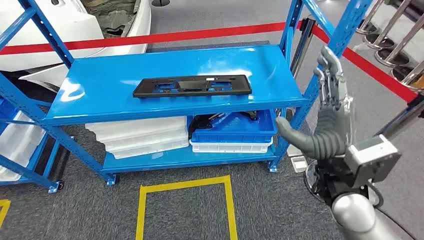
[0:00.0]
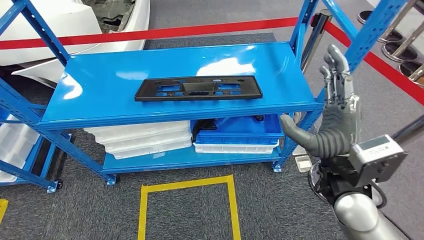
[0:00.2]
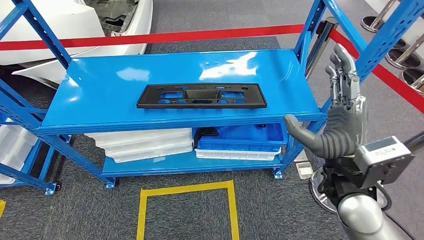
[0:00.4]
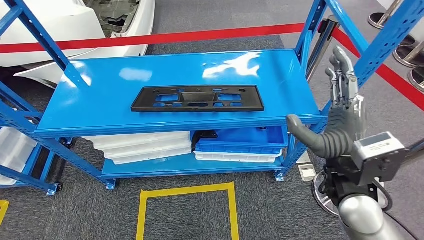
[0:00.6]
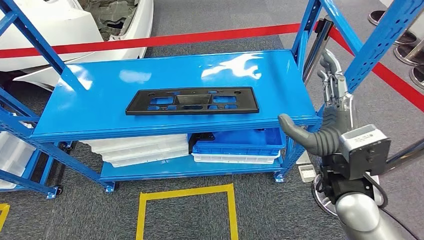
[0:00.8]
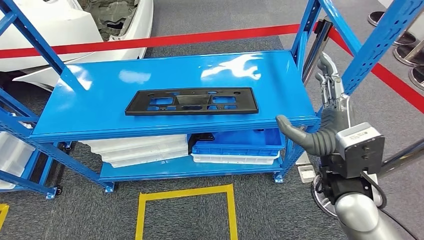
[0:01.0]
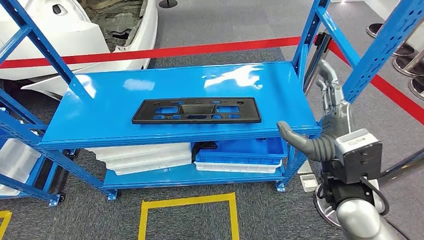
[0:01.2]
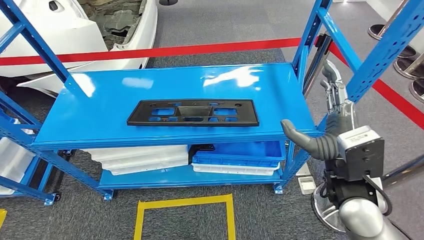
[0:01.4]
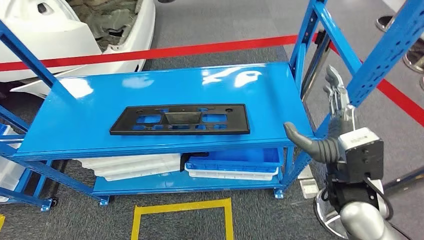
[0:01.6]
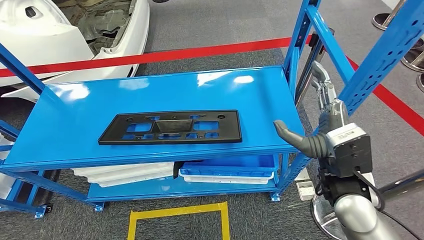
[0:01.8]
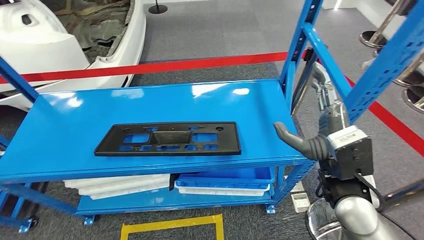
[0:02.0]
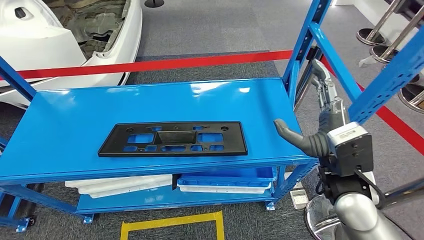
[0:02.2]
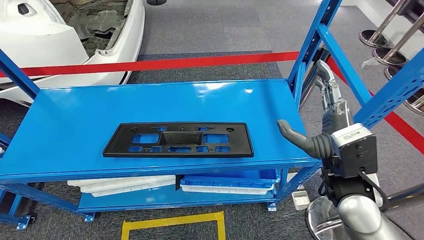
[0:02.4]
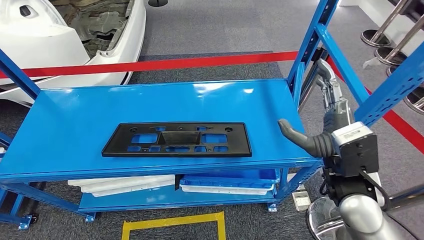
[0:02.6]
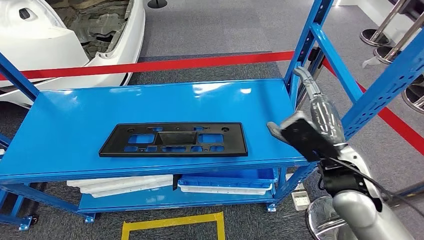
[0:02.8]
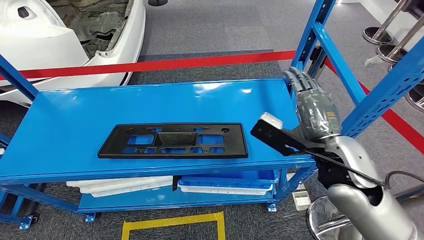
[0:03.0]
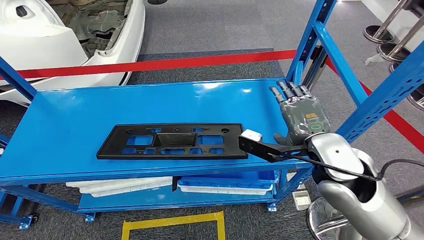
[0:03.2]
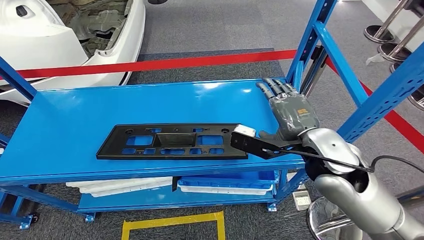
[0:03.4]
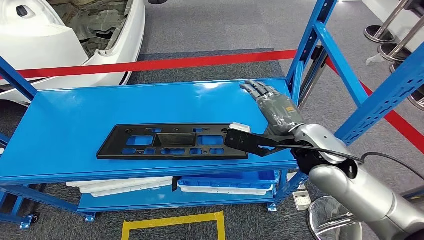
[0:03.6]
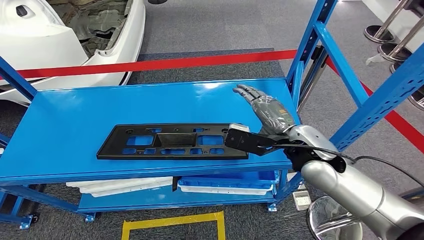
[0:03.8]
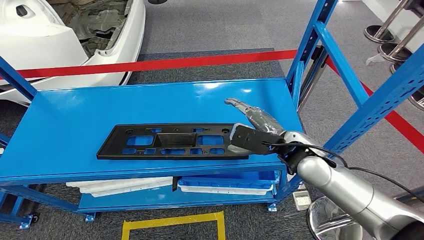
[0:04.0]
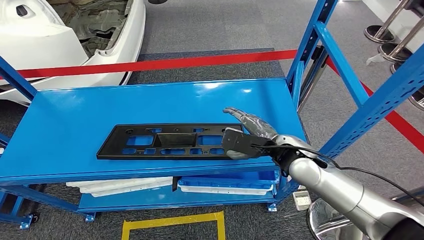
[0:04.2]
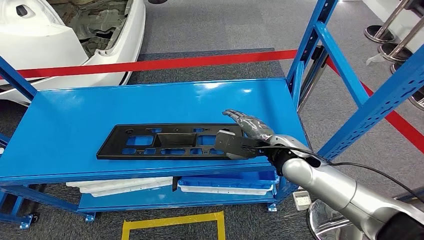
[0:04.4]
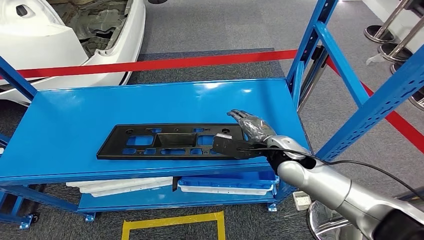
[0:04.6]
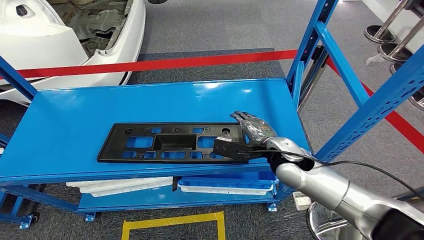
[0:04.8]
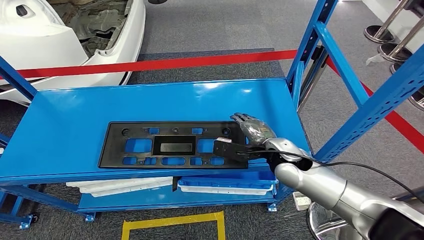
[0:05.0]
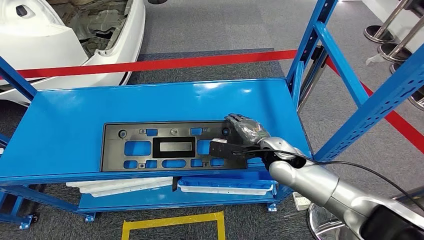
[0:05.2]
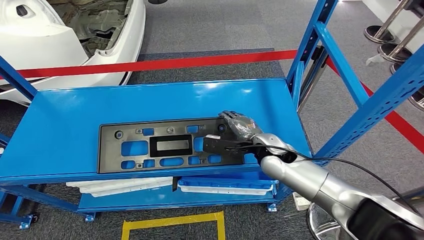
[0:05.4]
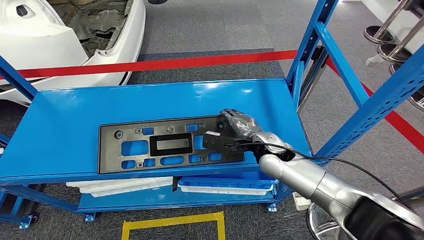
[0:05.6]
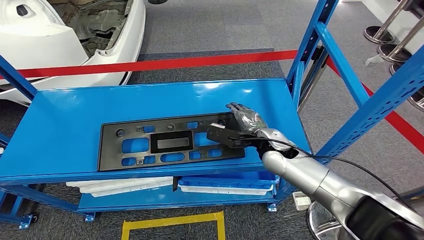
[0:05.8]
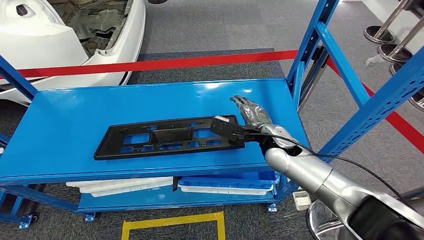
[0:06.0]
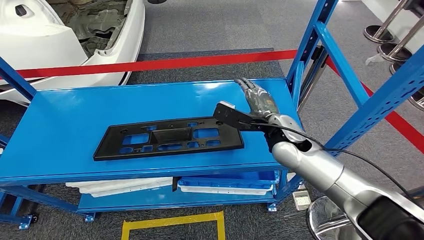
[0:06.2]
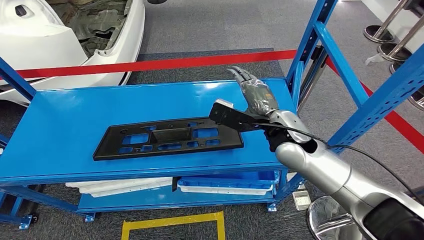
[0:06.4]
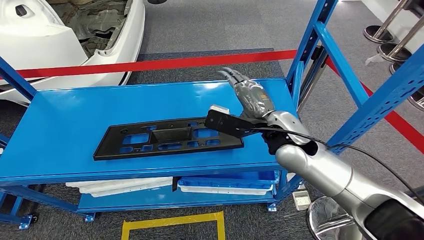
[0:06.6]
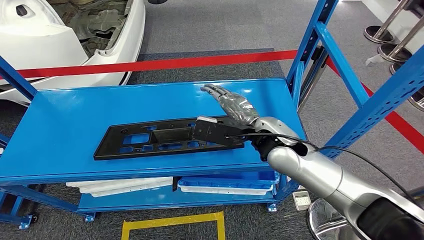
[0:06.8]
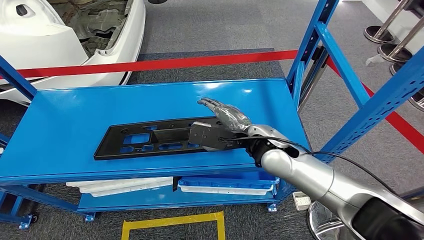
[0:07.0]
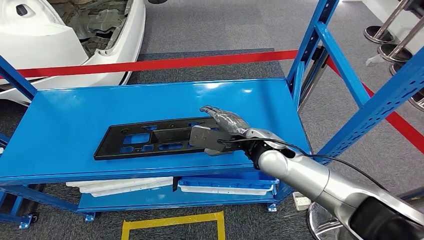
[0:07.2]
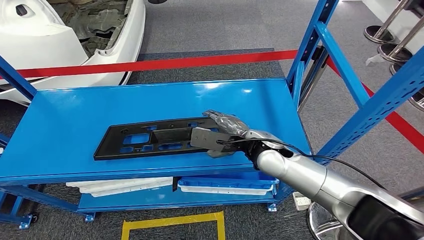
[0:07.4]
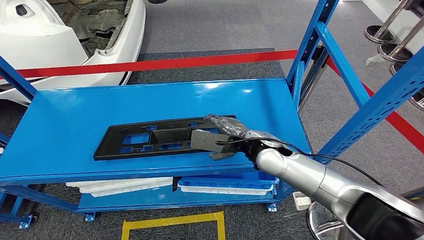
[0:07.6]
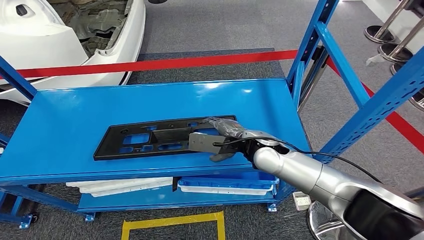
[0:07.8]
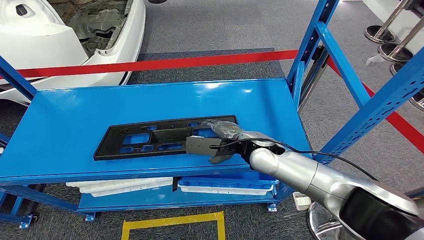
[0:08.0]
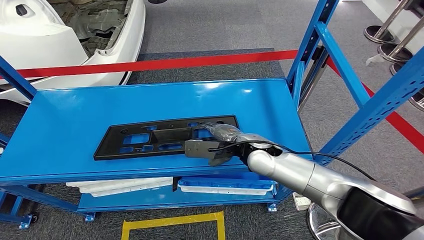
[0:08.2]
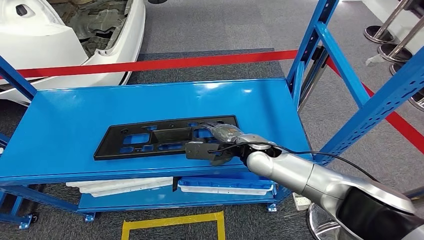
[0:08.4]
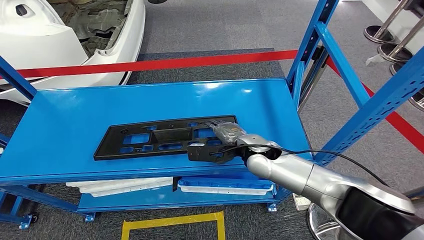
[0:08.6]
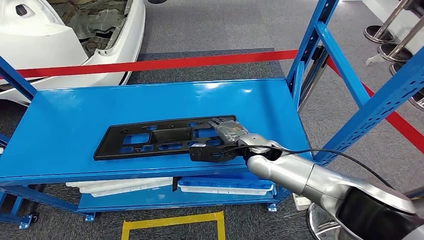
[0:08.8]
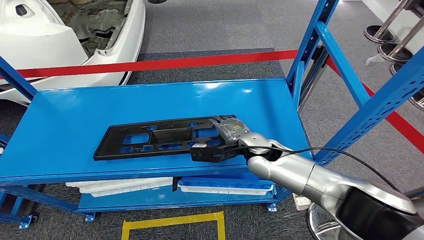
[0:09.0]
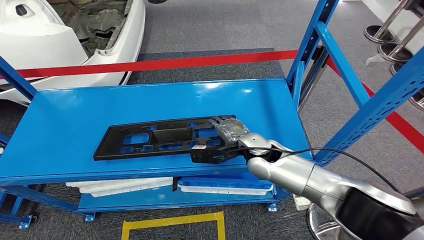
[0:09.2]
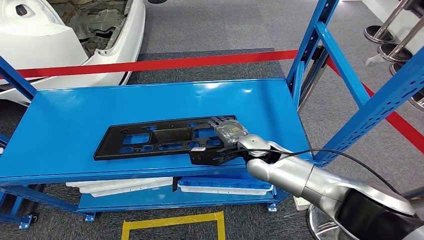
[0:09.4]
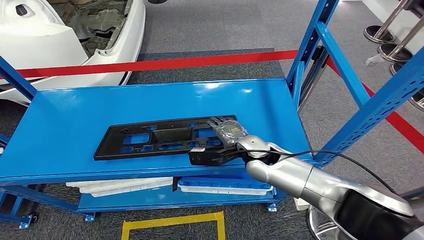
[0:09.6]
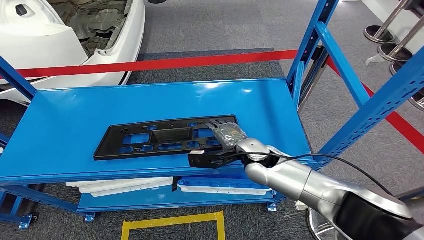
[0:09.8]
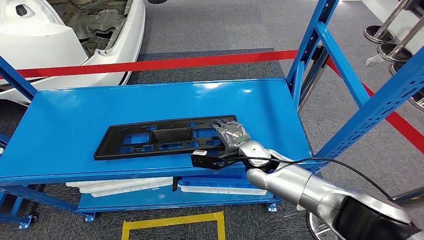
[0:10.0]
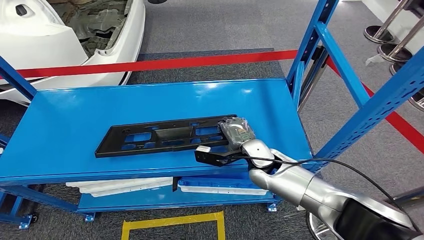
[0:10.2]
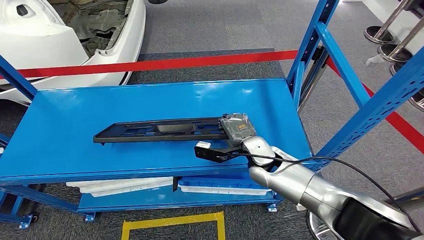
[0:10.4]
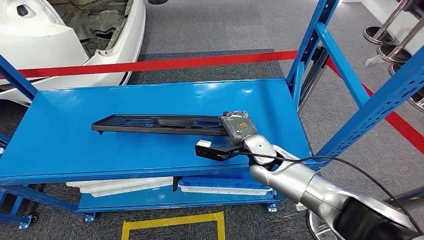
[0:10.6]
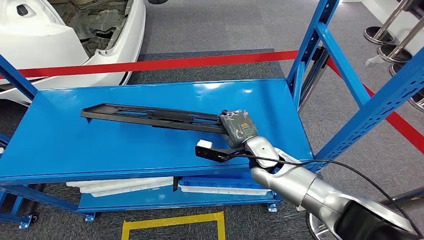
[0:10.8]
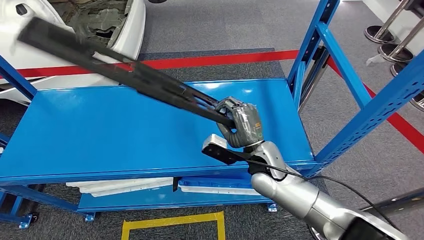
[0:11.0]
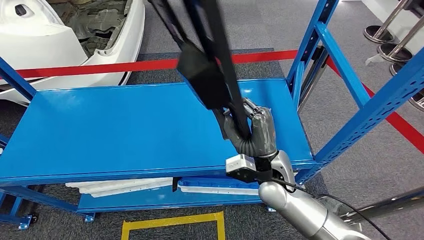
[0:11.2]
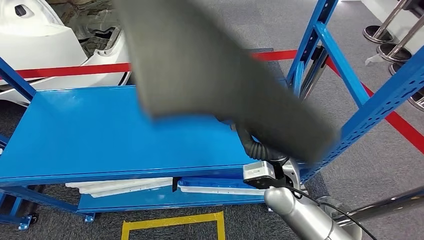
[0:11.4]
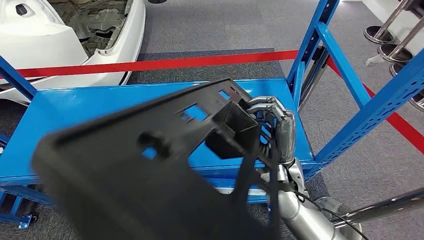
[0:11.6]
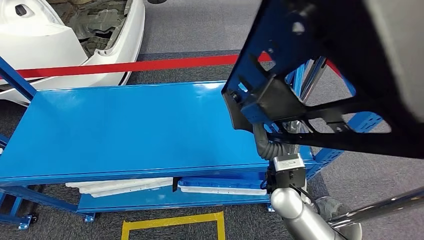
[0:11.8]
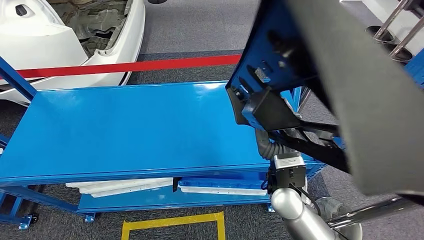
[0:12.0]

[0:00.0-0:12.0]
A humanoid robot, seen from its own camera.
0:03.0 to 0:04.4: The right hand travels downward and forward by roughly 10 cm.
0:04.4 to 0:06.0: The right hand is displaced forward by roughly 5 cm.
0:06.0 to 0:07.6: The right hand reaches about 10 cm upward, then returns.
0:09.0 to 0:10.4: There are only small adjustments of the hands.

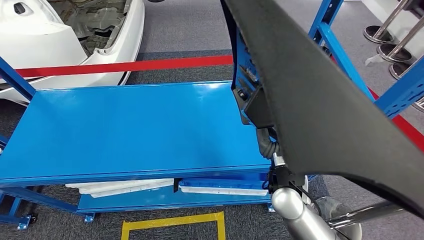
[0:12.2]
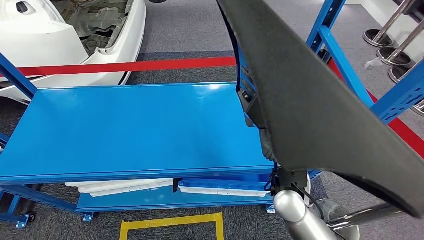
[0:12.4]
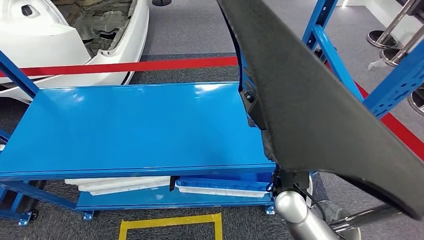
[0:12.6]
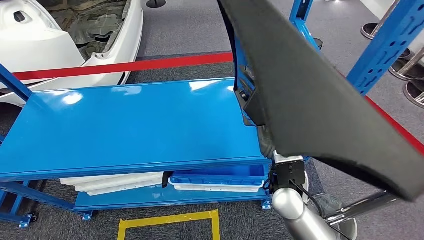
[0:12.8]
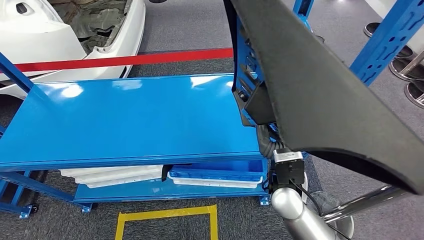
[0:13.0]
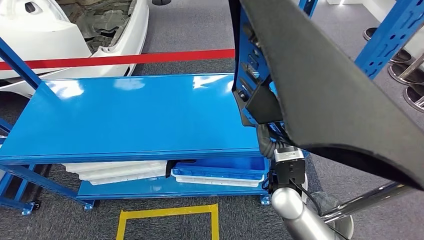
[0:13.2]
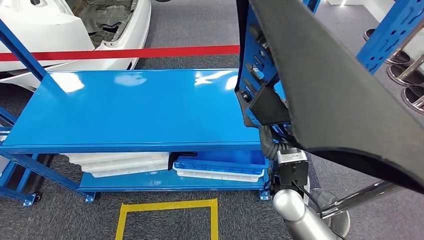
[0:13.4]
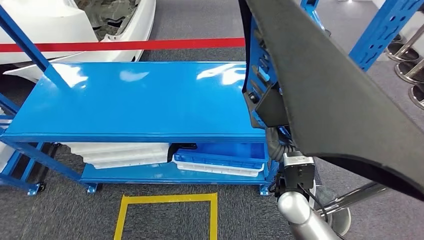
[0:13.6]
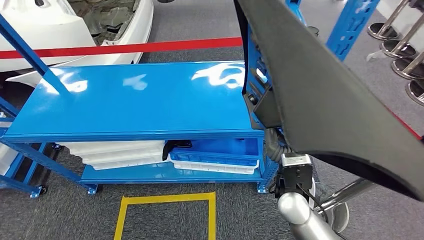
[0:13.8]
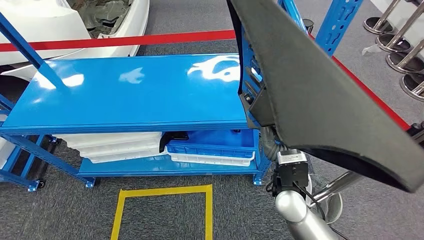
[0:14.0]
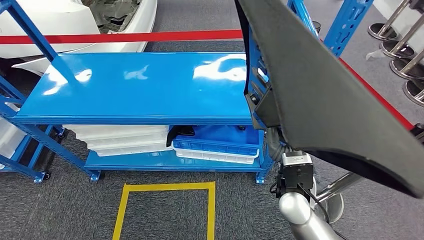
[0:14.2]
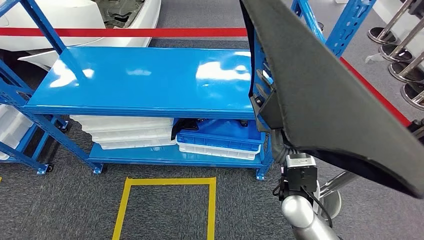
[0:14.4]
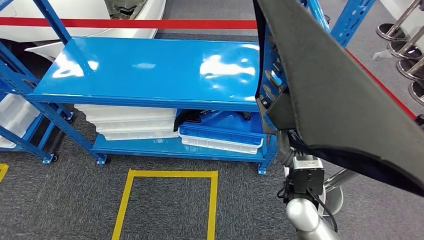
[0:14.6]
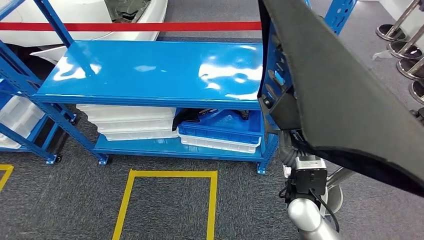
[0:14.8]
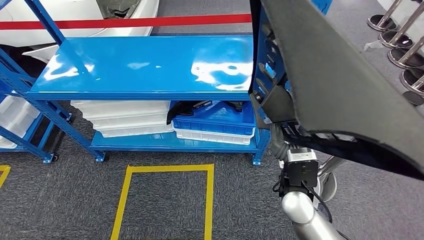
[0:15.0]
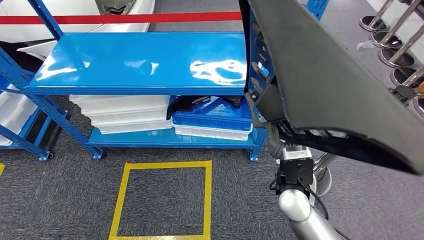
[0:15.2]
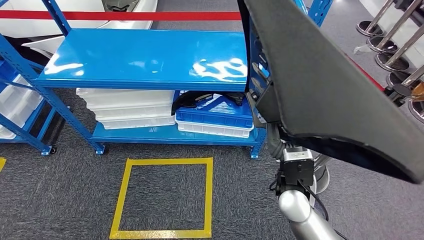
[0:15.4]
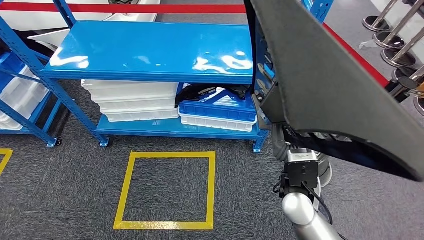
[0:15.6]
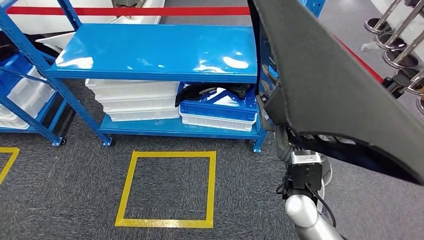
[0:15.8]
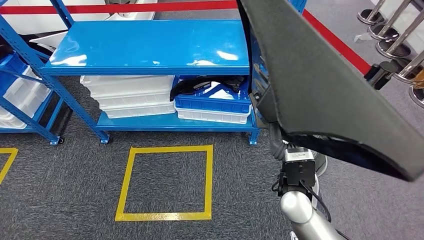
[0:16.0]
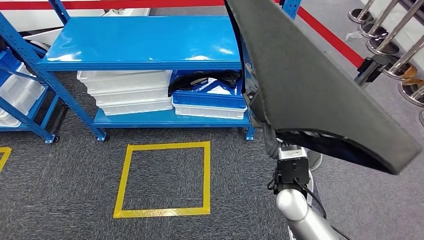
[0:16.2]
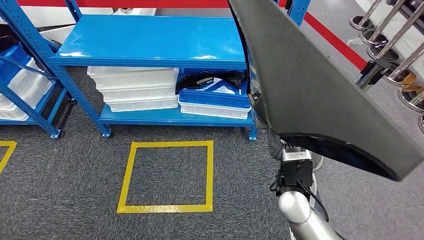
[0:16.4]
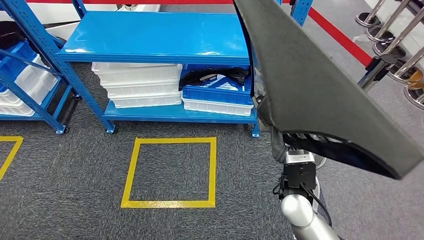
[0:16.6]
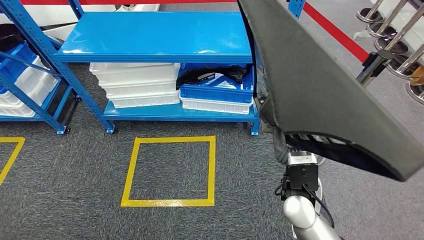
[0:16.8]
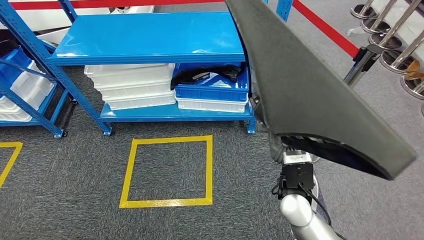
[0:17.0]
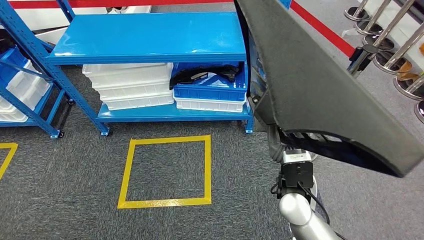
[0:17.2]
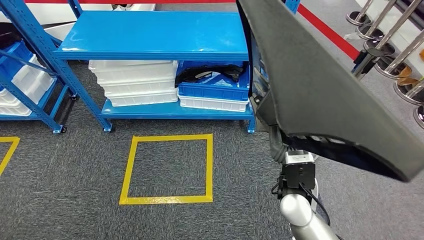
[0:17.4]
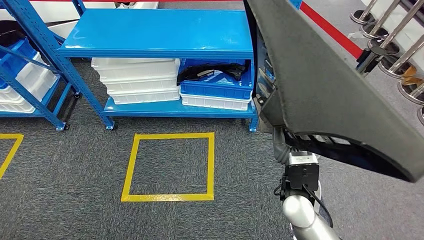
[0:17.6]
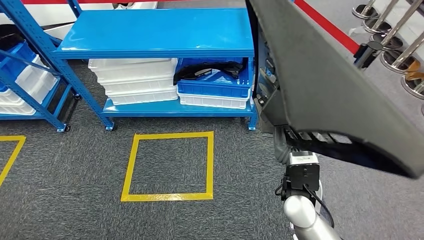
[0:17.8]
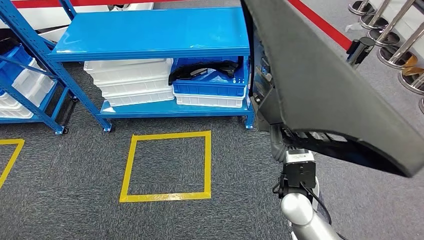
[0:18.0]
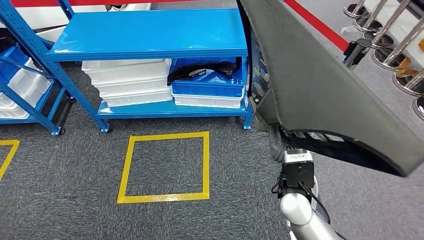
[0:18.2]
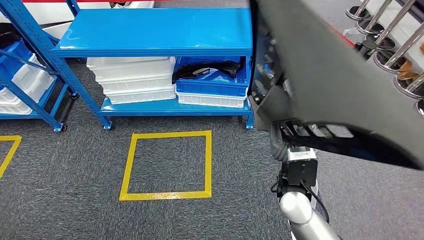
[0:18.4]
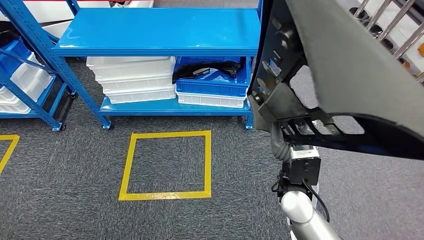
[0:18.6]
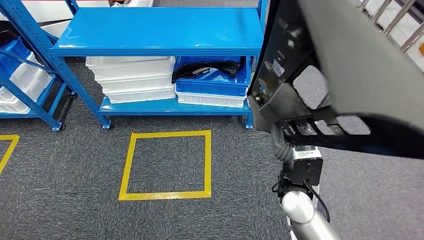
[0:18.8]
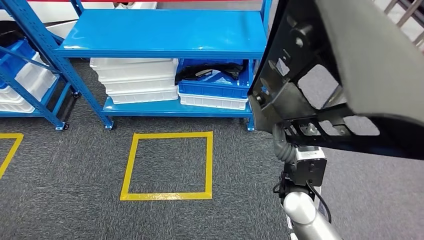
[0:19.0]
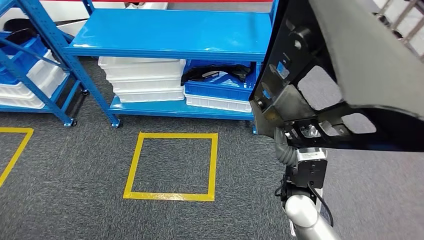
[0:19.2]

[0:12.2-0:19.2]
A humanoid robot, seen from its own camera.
Step, 0:12.2 to 0:14.6: Pick up the large material from the shelf.
